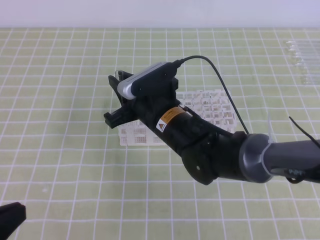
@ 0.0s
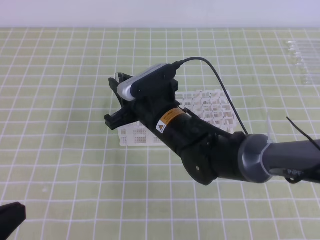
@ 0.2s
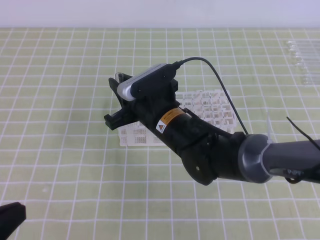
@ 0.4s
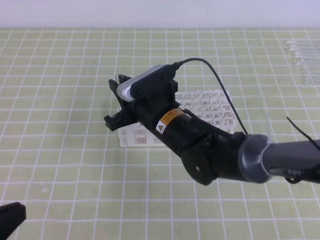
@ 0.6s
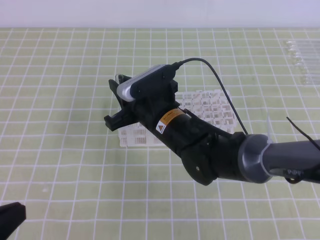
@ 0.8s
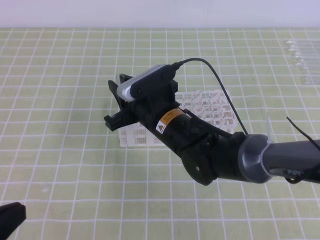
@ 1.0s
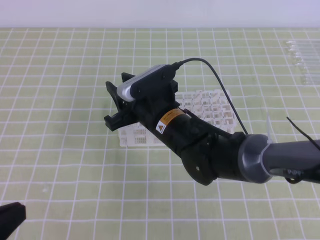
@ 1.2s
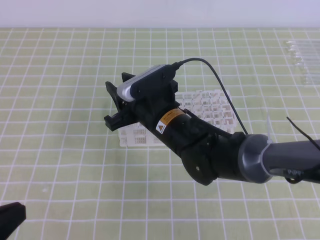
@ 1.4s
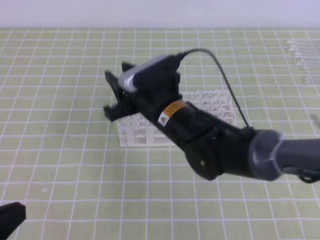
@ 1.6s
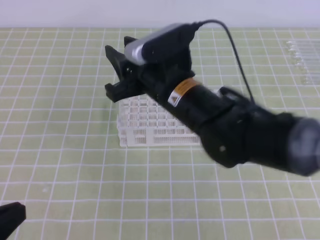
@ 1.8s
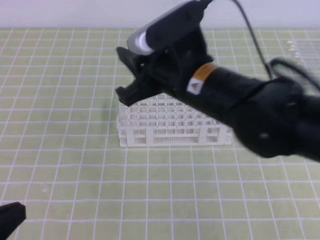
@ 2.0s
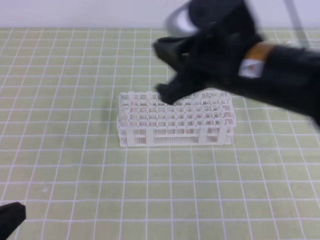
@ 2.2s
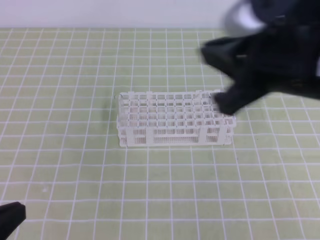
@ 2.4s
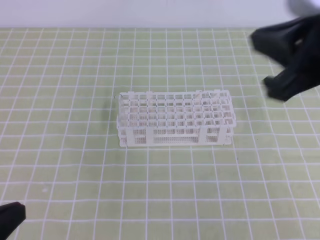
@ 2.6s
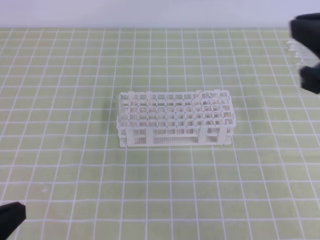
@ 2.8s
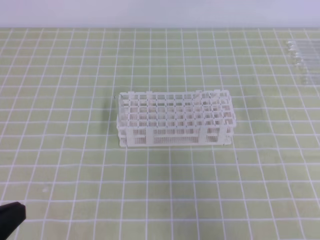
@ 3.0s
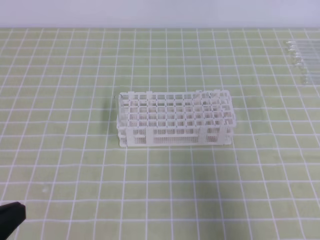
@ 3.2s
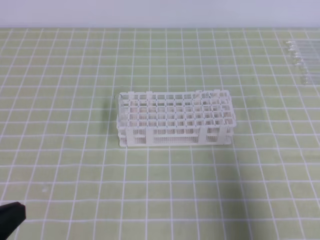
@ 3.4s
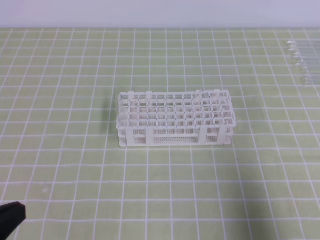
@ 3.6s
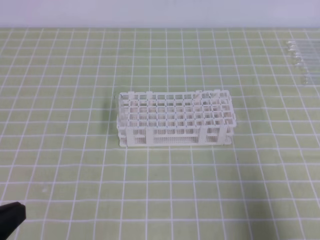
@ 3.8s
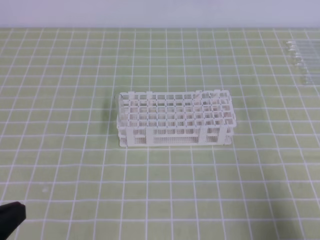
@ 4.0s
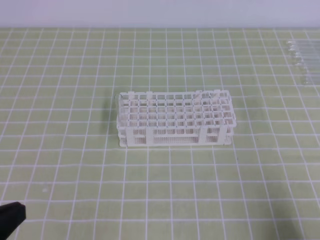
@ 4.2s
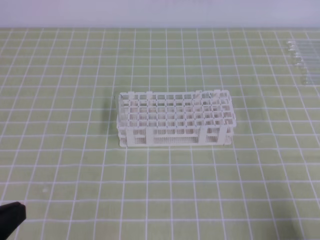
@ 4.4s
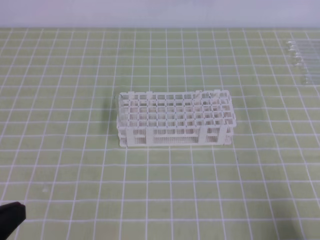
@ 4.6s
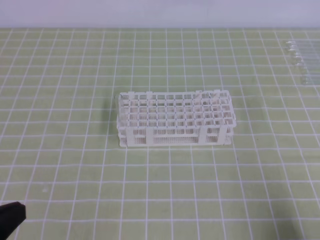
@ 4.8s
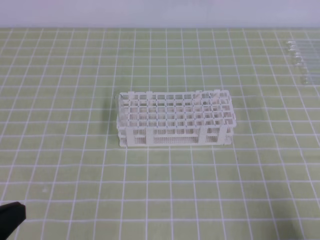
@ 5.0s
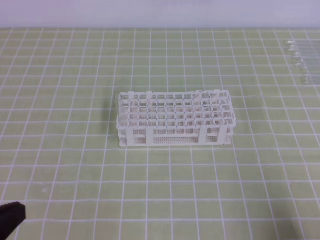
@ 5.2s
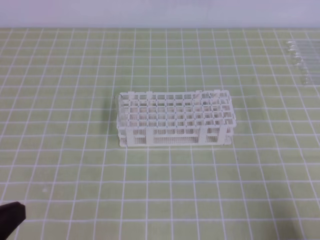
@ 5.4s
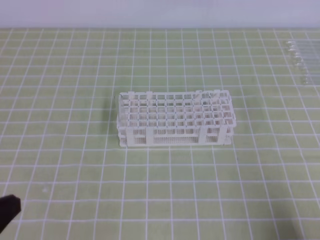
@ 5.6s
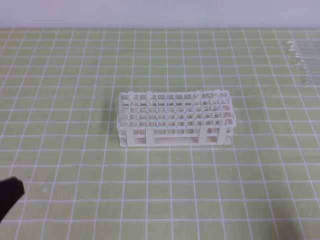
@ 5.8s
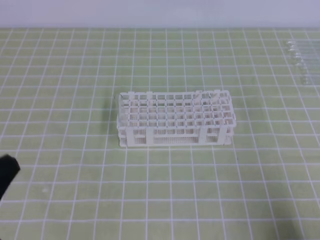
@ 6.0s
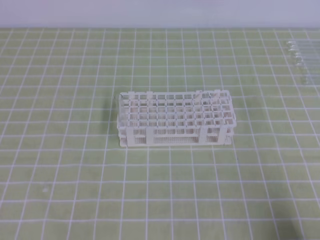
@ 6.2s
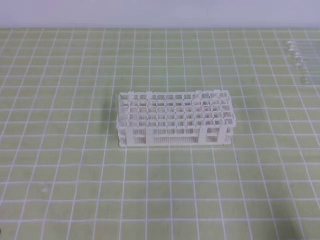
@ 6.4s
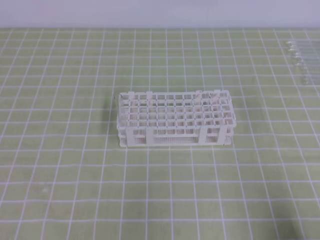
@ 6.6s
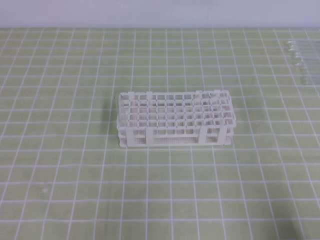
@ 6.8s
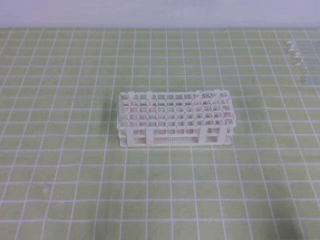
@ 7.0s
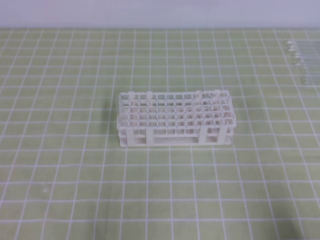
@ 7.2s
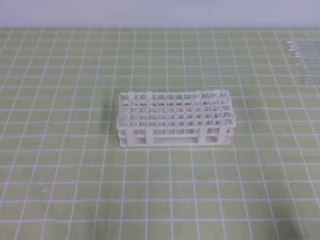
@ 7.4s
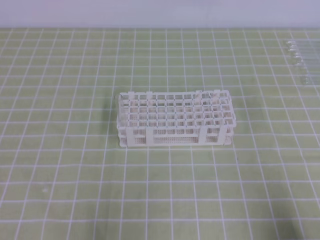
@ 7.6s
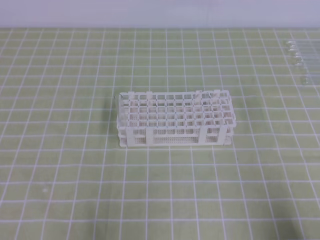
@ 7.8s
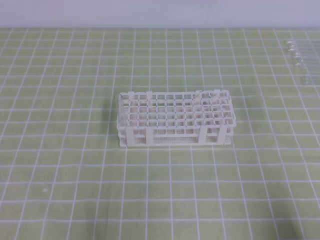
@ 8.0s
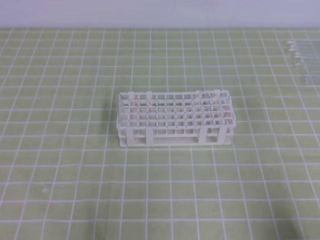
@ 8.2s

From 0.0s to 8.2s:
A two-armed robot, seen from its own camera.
From 0.0s to 1.6s: The right gripper opens up.
From 1.6s to 3.2s: The right gripper goes some 35 cm to the right, backward and upward, and closes.
From 3.2s to 5.0s: The right gripper shifts about 20 cm downward and backward.
From 5.0s to 6.6s: The left gripper moves about 5 cm.

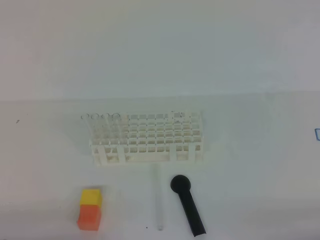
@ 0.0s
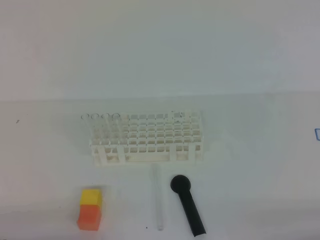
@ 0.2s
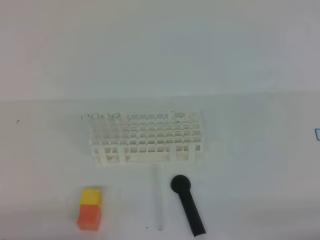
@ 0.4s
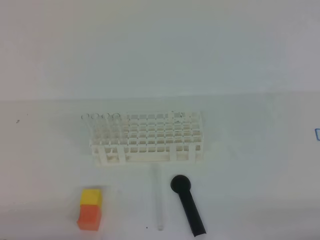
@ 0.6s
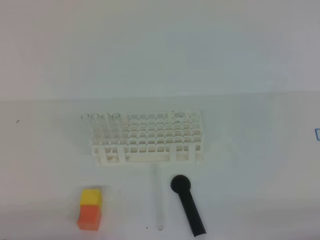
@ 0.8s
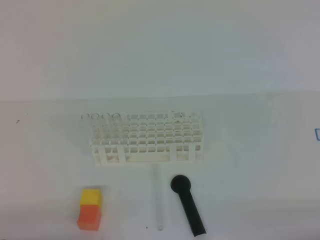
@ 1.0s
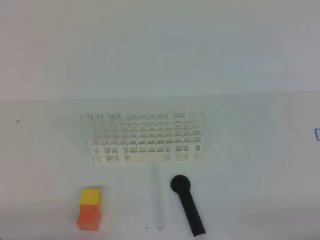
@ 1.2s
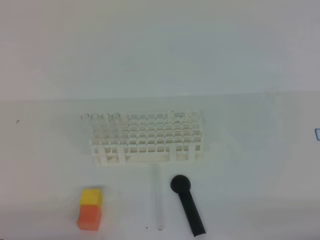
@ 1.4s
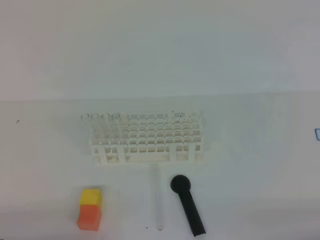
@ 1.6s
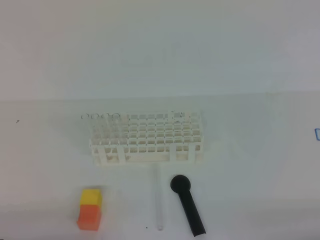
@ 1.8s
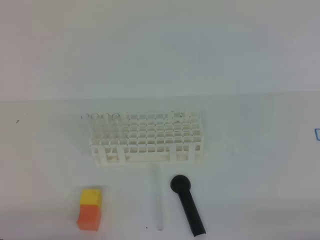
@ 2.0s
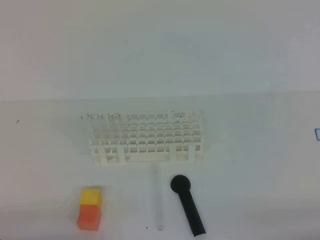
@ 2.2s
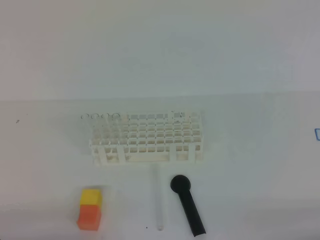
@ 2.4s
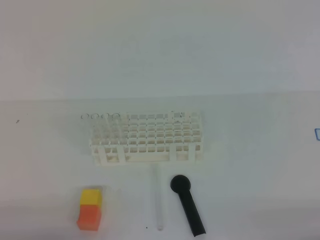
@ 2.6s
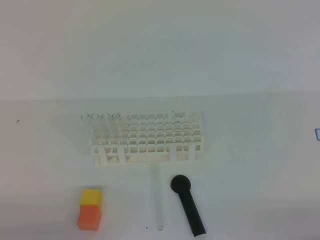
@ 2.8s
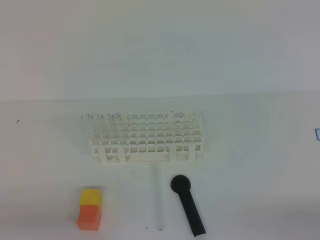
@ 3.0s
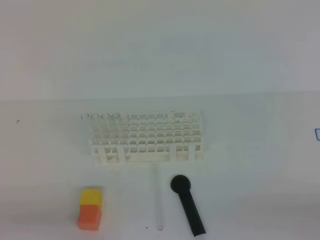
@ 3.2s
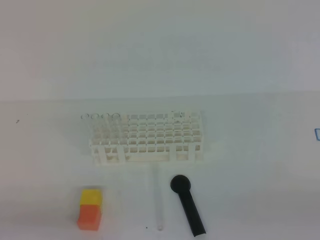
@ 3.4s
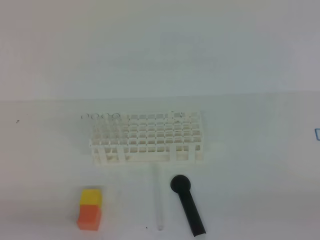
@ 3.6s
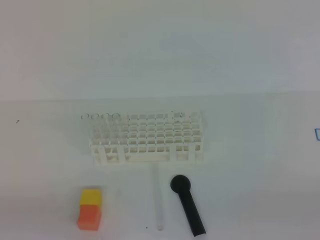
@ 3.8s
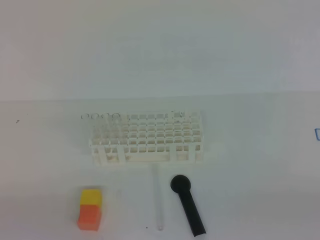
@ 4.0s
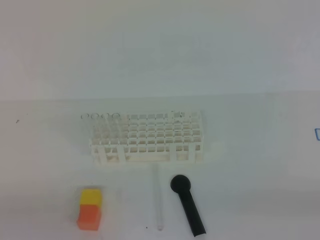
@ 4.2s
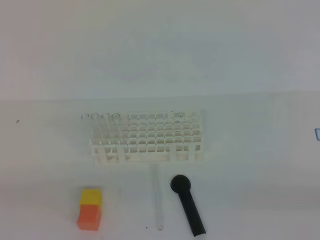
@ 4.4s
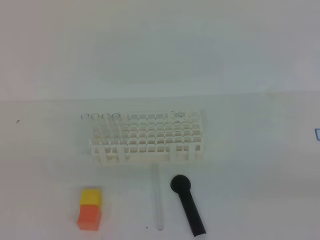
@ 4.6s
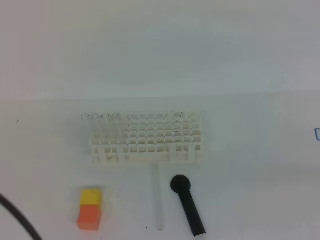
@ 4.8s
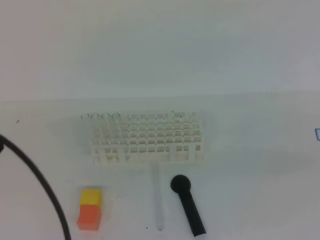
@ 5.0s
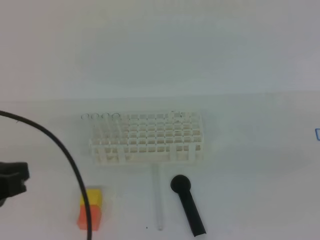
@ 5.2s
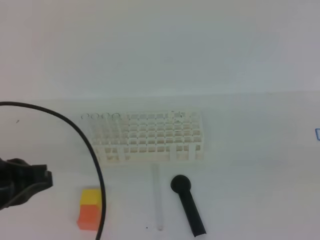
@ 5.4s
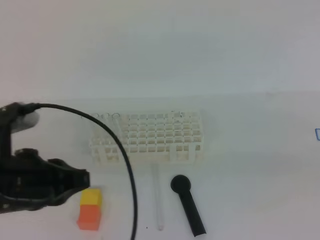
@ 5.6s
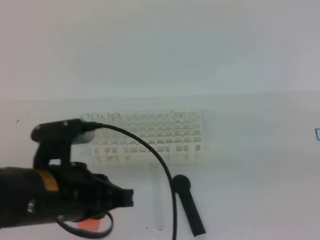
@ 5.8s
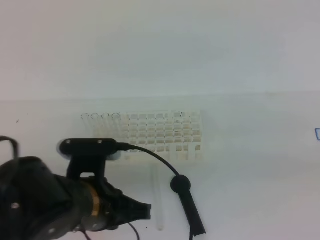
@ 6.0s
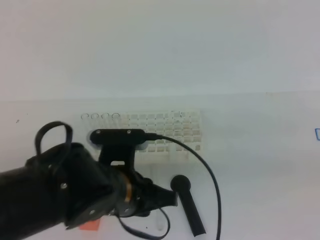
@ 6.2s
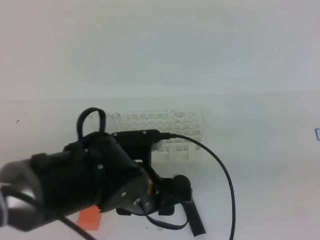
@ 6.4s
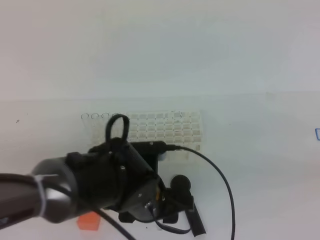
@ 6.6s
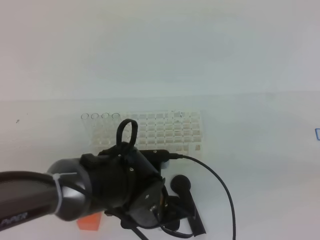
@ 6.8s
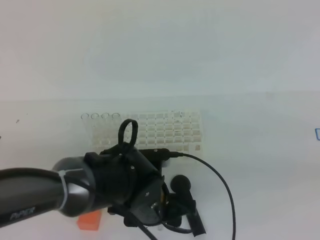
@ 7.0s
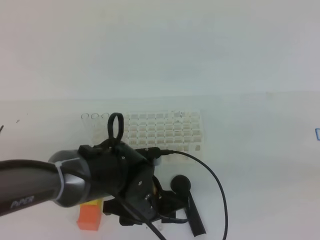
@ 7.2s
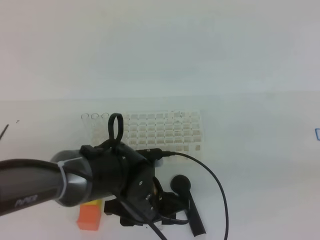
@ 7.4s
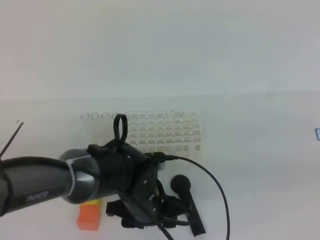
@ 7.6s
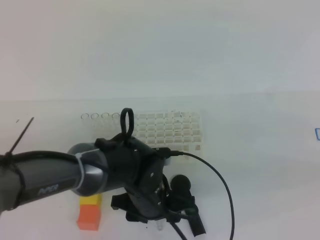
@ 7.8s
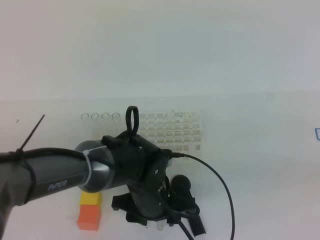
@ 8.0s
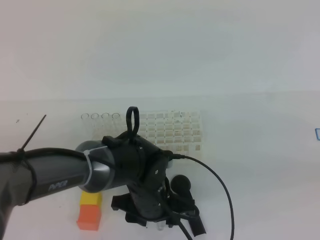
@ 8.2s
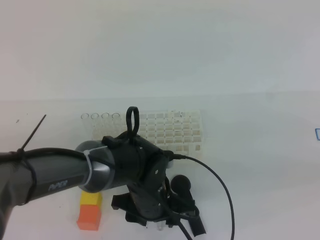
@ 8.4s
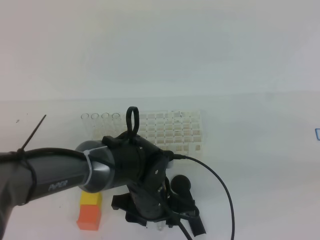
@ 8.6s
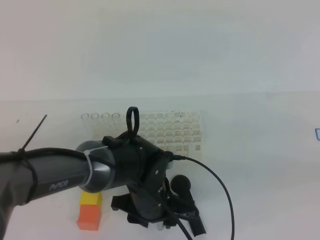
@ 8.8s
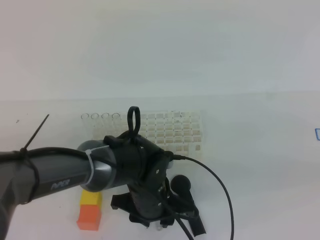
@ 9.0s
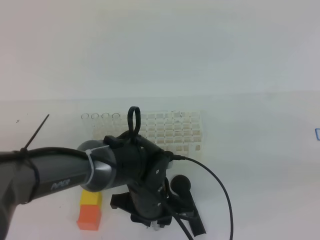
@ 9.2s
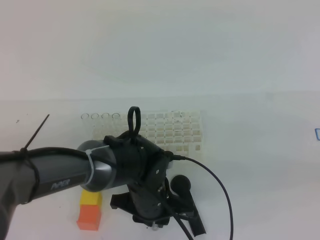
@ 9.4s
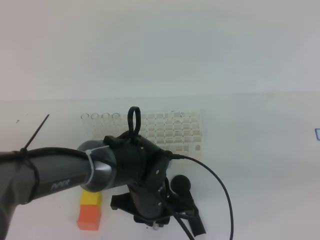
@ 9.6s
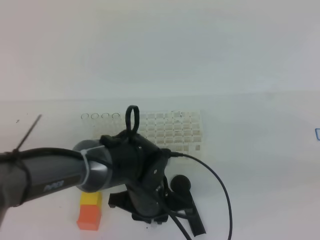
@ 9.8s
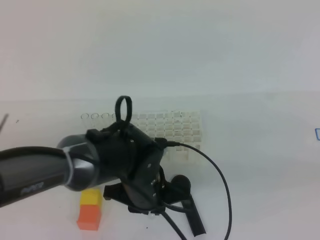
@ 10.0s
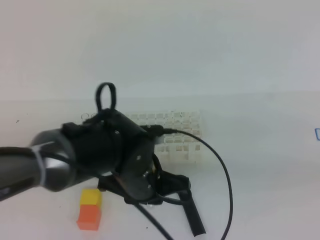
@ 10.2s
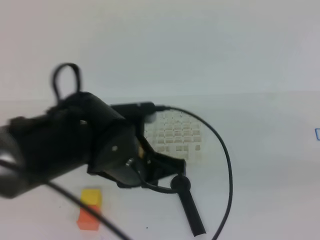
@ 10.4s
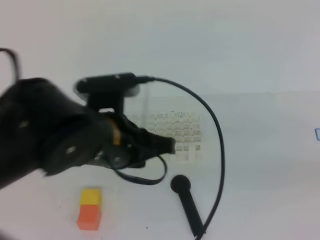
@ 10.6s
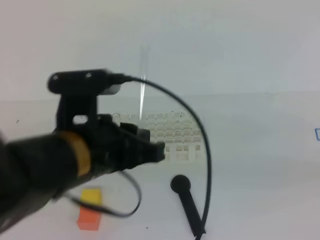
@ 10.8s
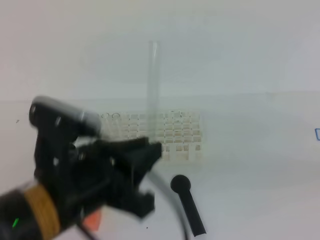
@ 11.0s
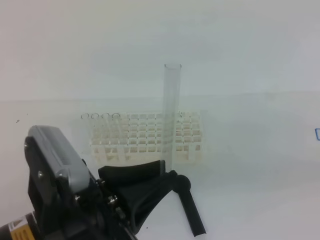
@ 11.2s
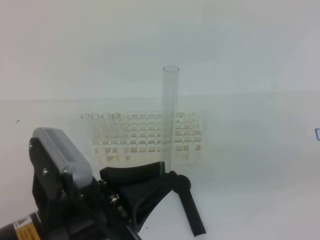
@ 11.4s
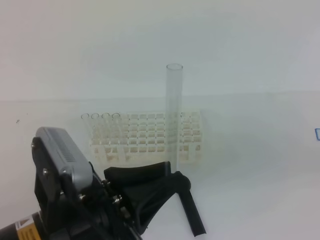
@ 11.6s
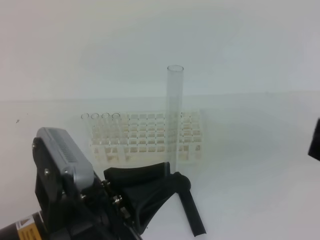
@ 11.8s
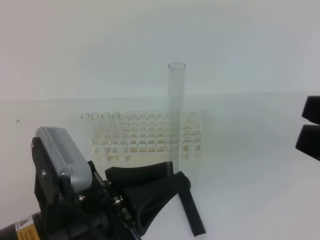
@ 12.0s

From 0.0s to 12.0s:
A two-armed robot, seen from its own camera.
From 0.0s to 1.6s: Neither gripper changes place.
From 4.4s to 6.0s: The left gripper goes about 20 cm to the right and forward, while the right gripper is displaced upward and forward by approximately 10 cm.
From 6.0s to 7.6s: The left gripper shifts approximately 15 cm downward, to the right and forward, and opens.
From 7.6s to 9.0s: The grippers move only a little.
From 9.0s to 10.4s: The left gripper goes some 10 cm upward, and closes its fingers.
From 10.4s to 12.0s: The left gripper shifts some 15 cm backward and to the left; the right gripper changes place by some 5 cm, and opens.

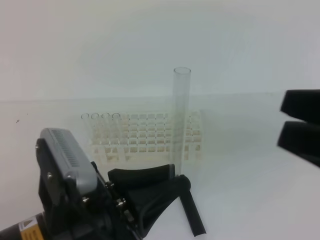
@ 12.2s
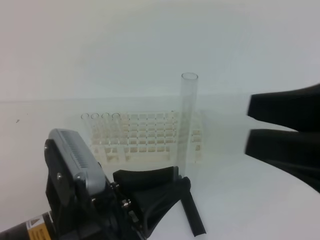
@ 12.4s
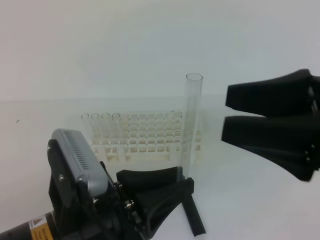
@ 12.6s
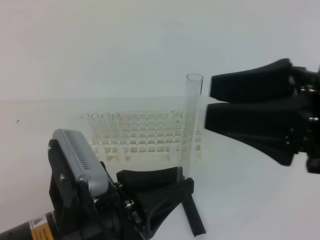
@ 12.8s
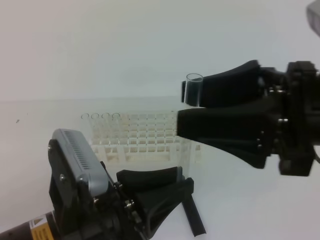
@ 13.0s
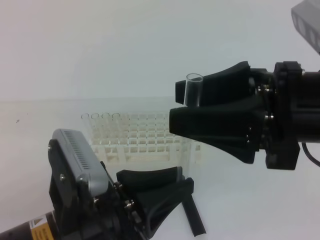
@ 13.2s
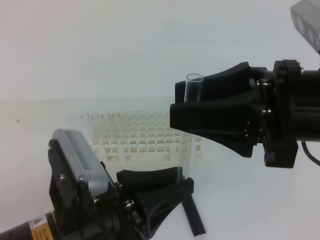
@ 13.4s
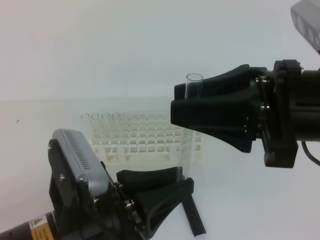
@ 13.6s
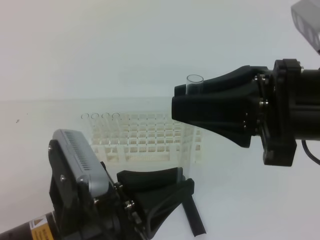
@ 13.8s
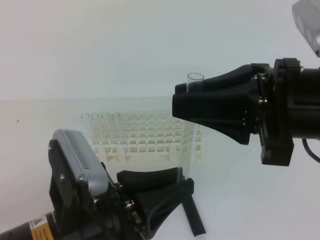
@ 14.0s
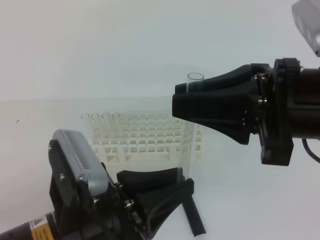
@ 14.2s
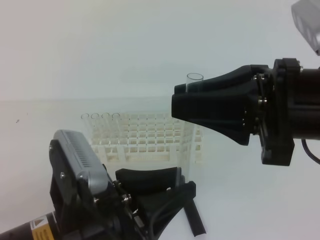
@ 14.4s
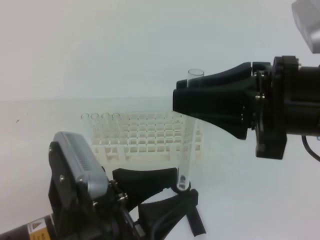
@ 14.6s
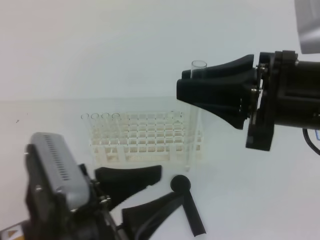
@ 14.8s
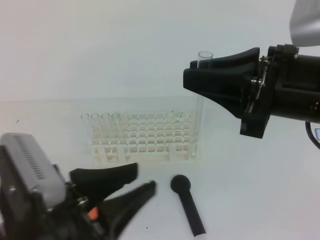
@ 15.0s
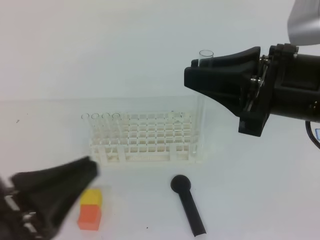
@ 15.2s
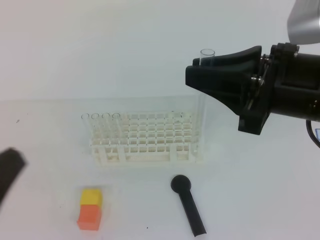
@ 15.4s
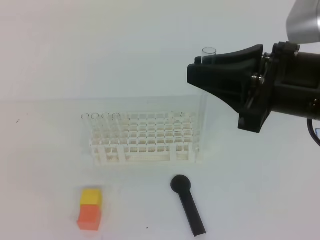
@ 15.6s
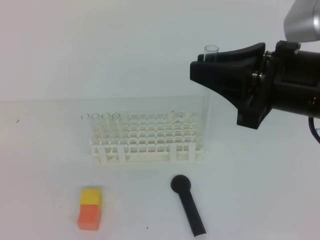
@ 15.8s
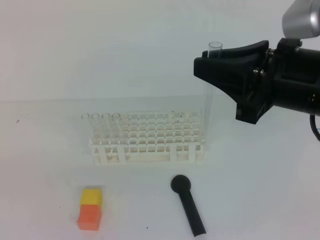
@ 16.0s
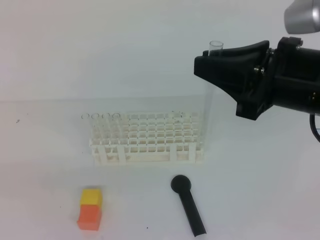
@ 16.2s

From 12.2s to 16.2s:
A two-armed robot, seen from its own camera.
From 12.2s to 13.6s: The right gripper is displaced to the left and forward by about 10 cm.
From 13.6s to 14.8s: The left gripper opens; the right gripper closes up.
From 14.8s to 16.2s: The left gripper goes roughly 20 cm to the left and backward, and closes its fingers.
